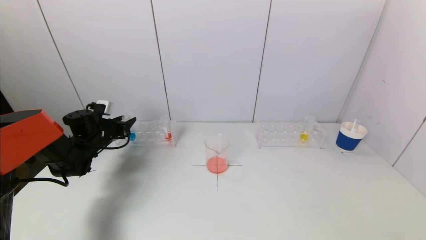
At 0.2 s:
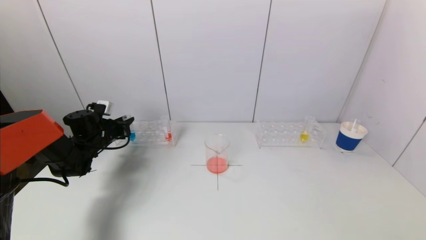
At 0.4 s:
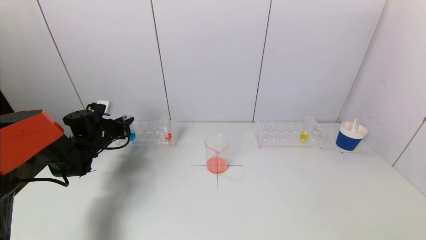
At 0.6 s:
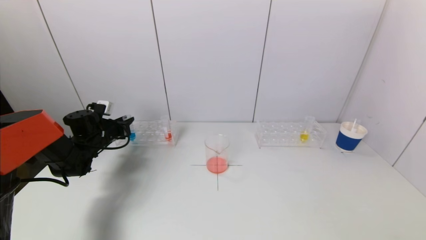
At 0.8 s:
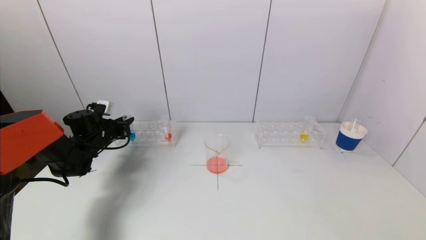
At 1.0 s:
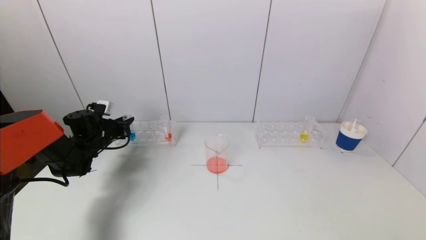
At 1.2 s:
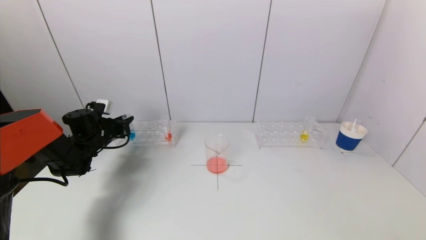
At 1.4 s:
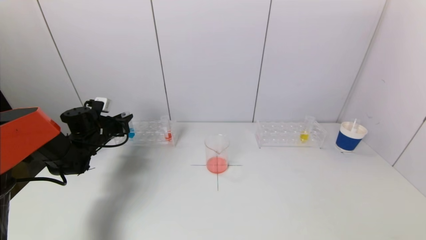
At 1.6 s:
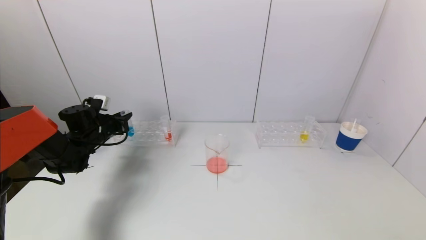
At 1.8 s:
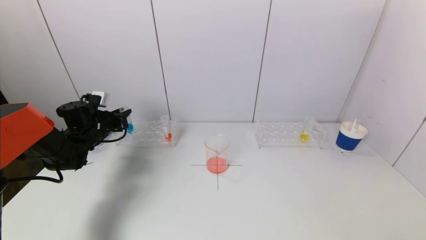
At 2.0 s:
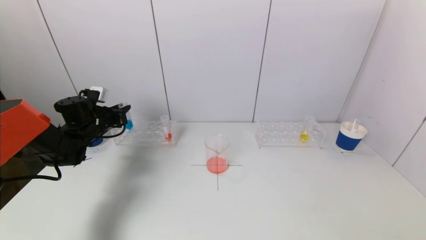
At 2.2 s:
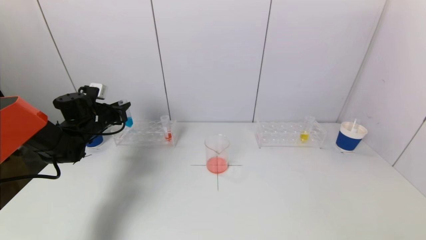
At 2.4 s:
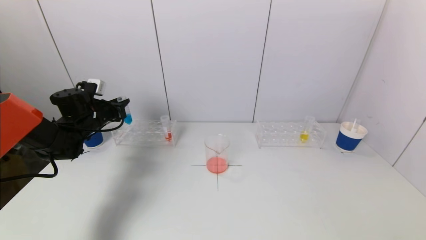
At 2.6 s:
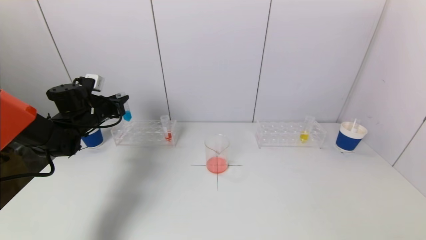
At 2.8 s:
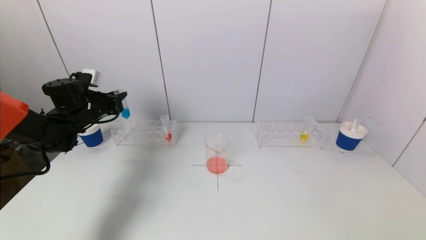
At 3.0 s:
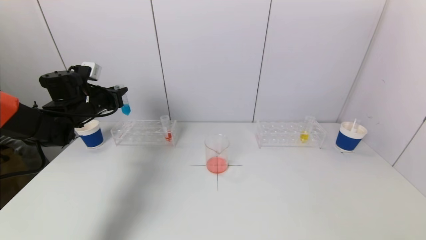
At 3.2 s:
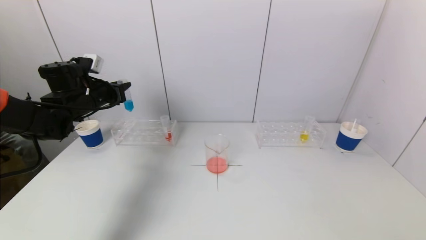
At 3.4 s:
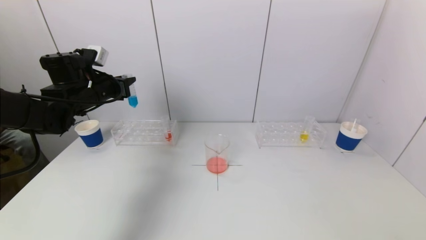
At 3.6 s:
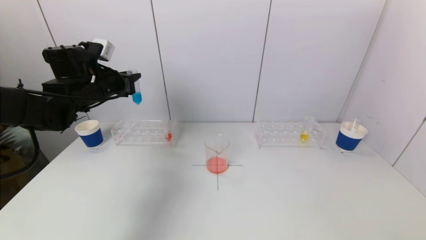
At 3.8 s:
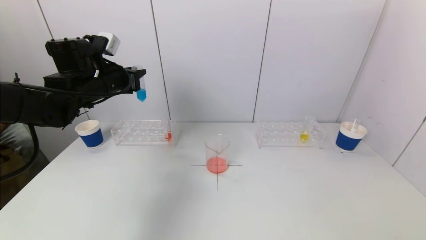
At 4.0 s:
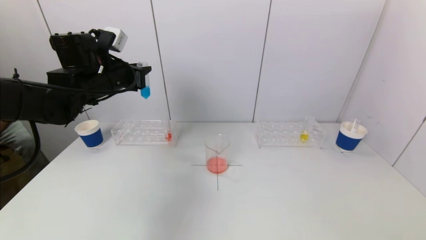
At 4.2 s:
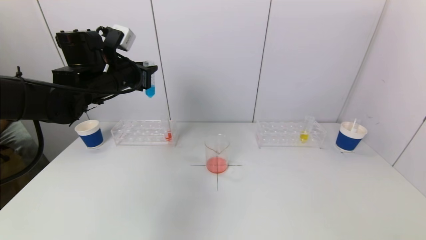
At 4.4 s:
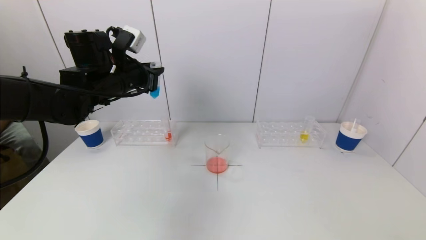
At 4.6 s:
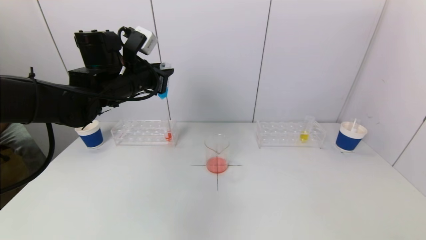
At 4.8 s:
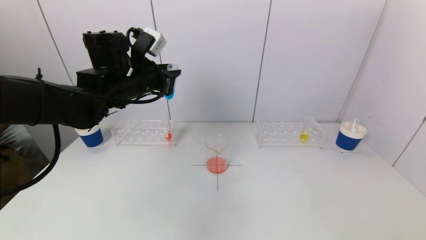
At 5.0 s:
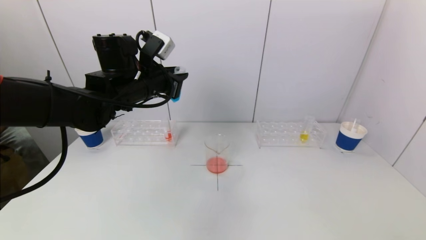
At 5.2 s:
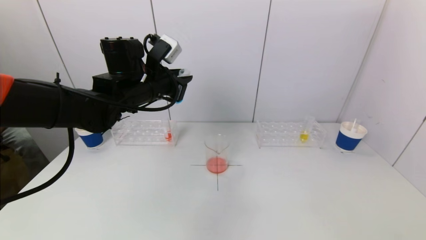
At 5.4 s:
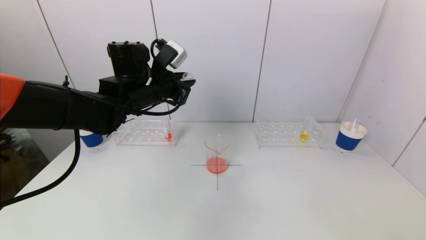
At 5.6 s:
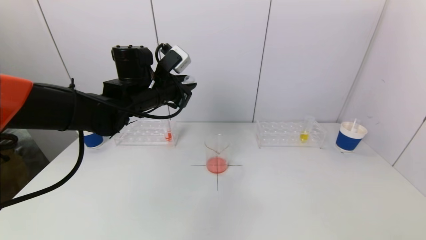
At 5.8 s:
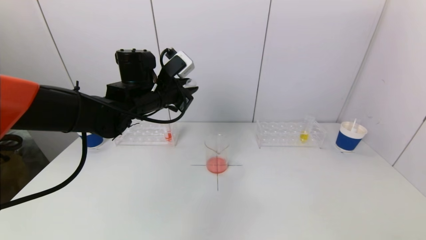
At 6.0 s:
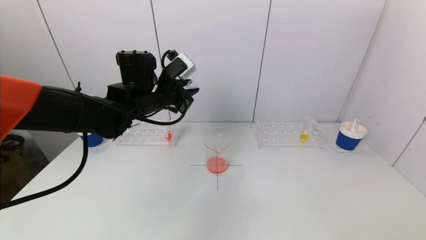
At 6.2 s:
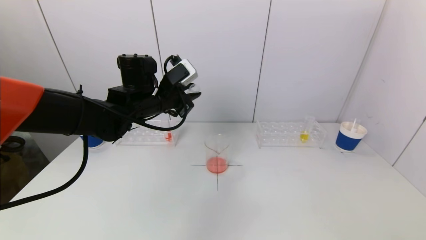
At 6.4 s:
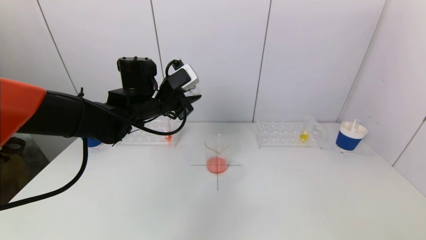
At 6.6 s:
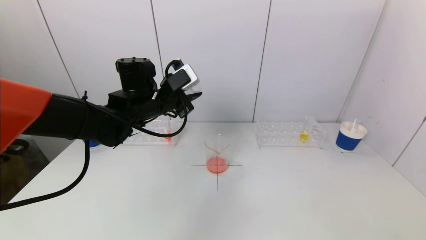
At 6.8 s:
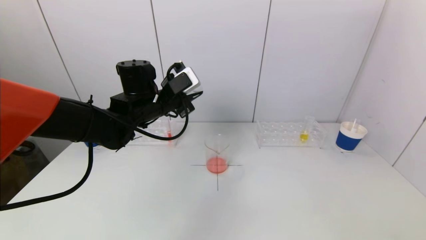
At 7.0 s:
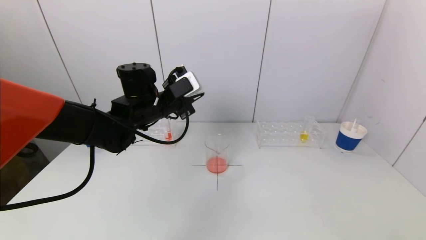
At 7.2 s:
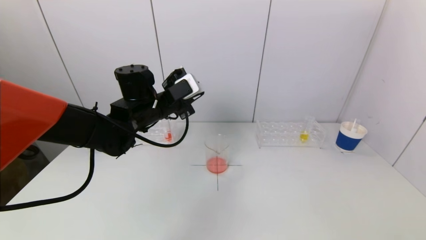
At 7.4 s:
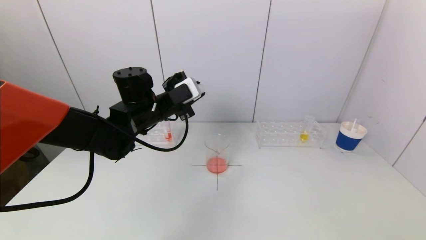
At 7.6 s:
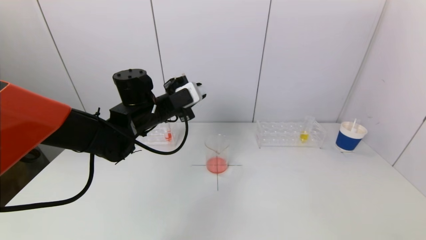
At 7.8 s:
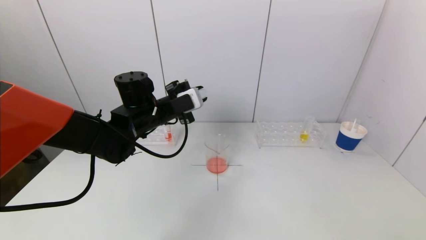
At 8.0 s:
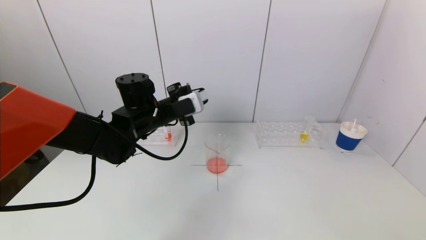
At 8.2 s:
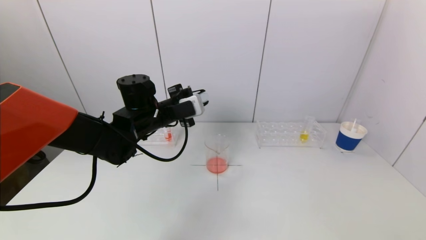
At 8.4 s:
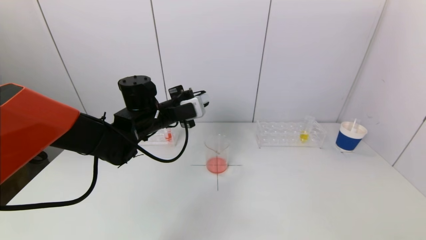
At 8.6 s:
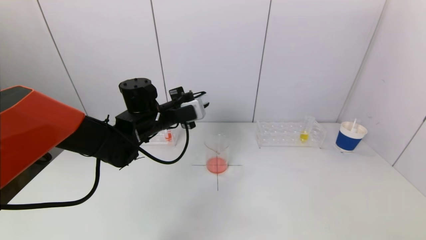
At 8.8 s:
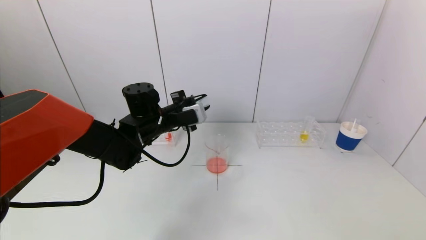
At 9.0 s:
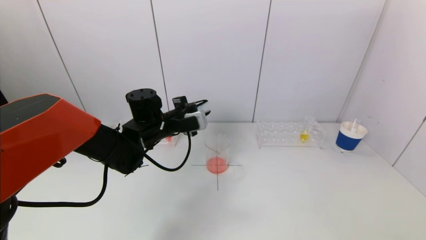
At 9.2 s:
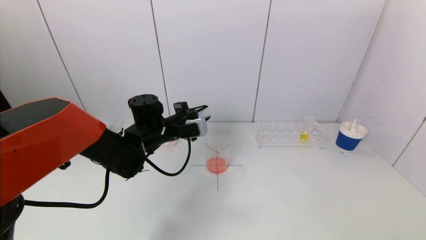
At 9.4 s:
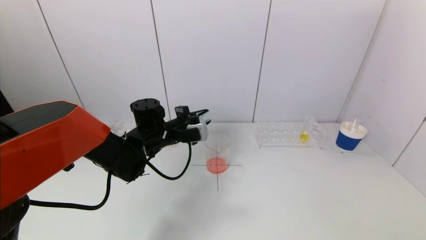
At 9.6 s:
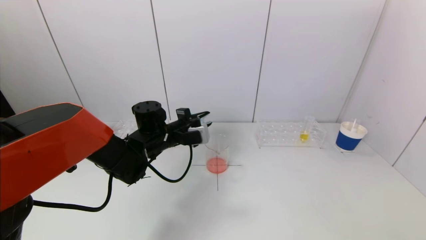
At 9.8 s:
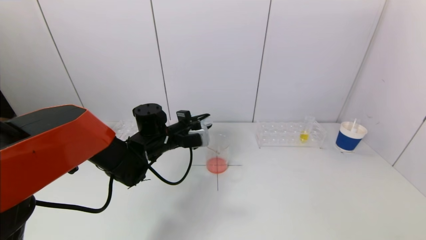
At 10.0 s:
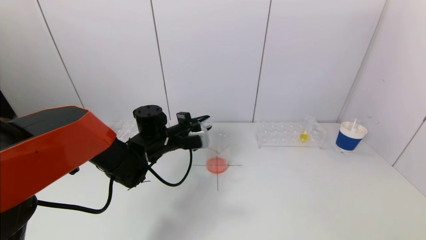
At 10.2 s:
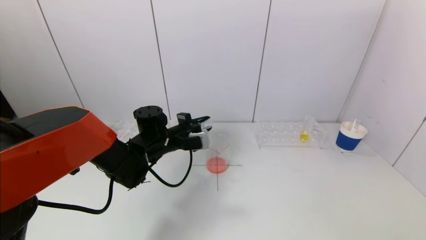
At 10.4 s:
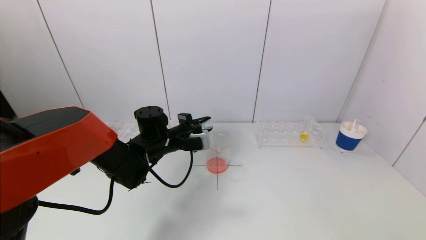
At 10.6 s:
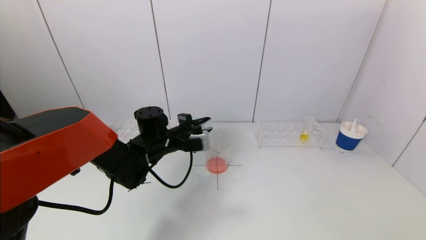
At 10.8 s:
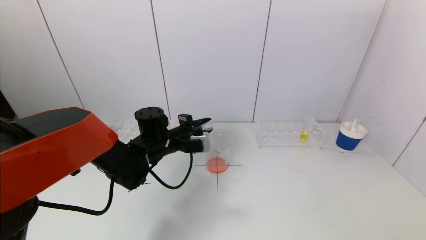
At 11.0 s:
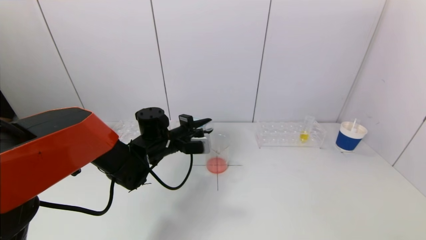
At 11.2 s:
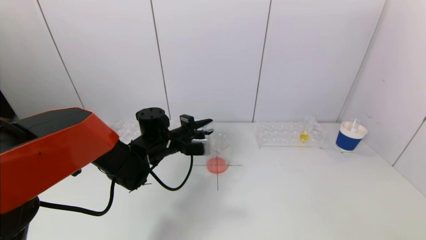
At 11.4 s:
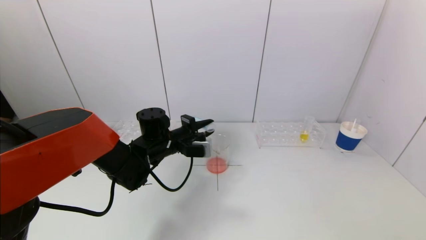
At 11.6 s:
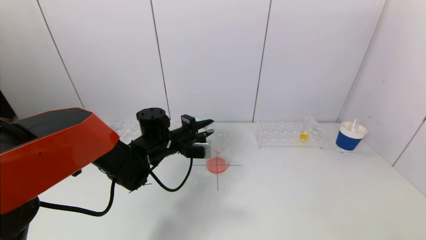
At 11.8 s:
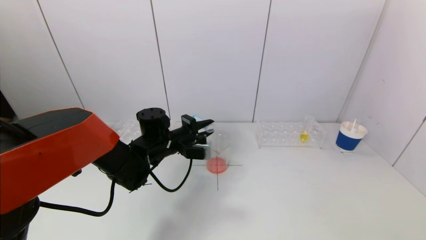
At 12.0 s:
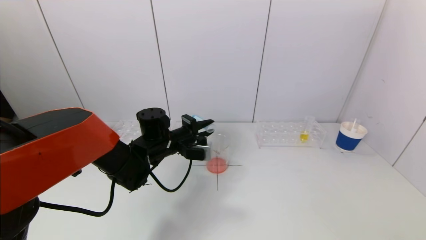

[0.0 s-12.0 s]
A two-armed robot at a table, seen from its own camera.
Task of the whole recording: pick up a test tube with pigment on left test tube rack and a test tube with pigment on right test tube rack by grippers and pour them into the beaker.
0.0 to 1.6 s: The grippers make only small movements.
1.6 to 3.0 s: The left gripper moves upward, roughly 10 cm.
3.0 to 4.4 s: The left gripper is displaced to the right and upward by about 15 cm.
4.4 to 6.0 s: The left gripper is displaced to the right by about 5 cm.
7.6 to 9.0 s: The grippers stay close to where they were, moving slightly.
9.0 to 12.0 s: The grippers stay close to where they were, moving slightly.

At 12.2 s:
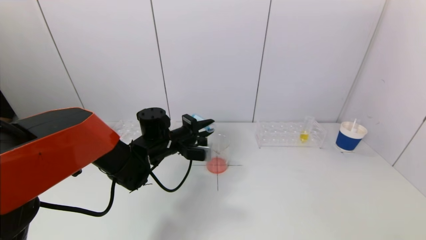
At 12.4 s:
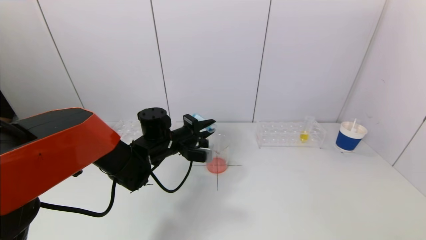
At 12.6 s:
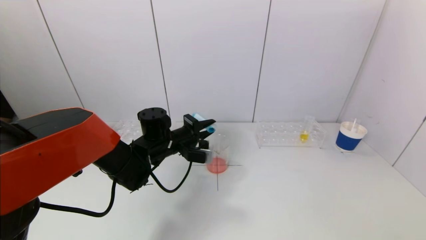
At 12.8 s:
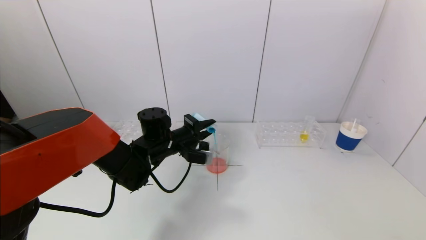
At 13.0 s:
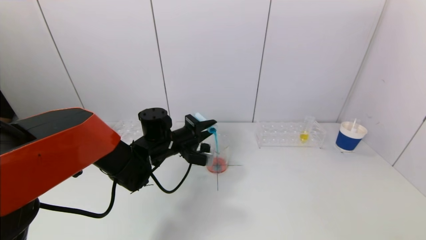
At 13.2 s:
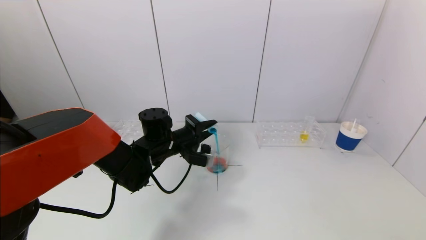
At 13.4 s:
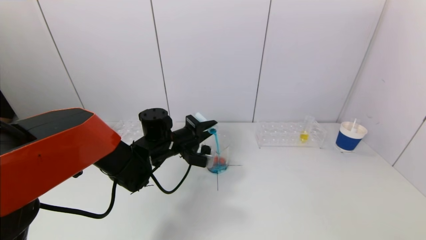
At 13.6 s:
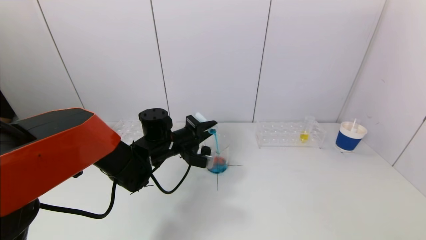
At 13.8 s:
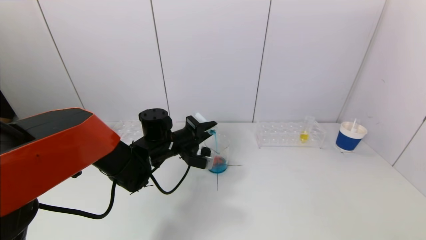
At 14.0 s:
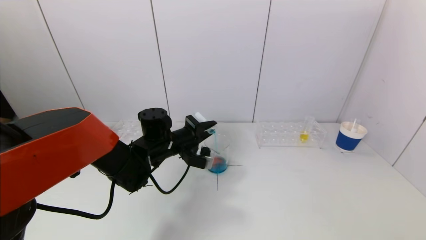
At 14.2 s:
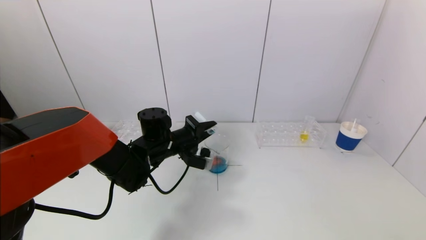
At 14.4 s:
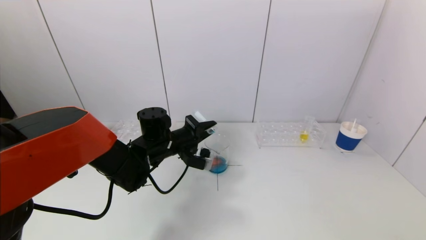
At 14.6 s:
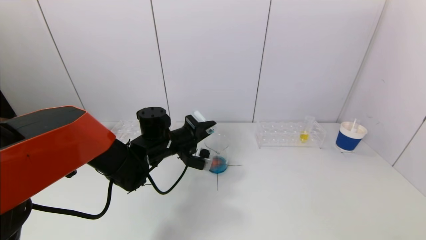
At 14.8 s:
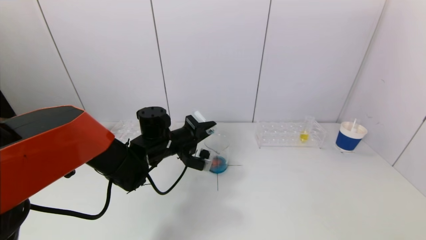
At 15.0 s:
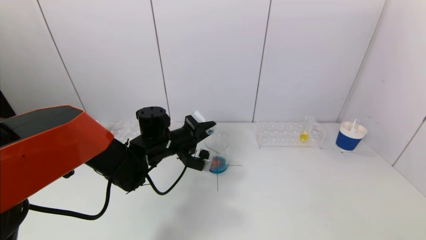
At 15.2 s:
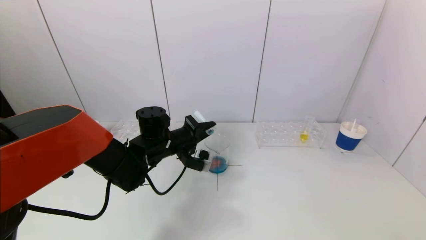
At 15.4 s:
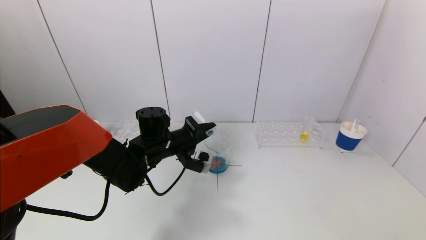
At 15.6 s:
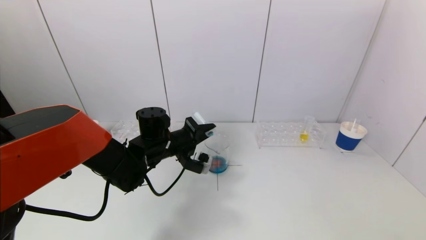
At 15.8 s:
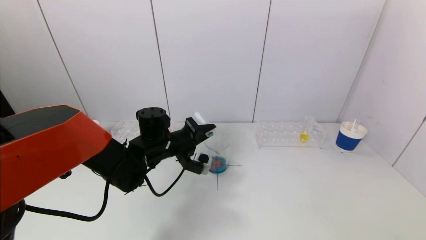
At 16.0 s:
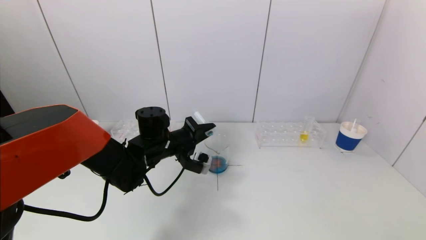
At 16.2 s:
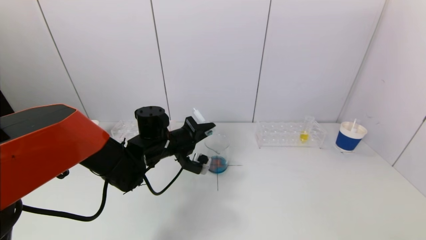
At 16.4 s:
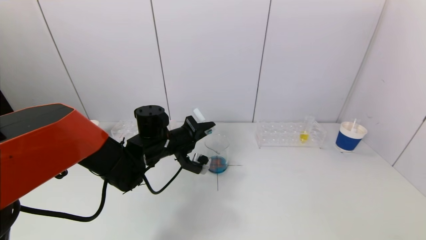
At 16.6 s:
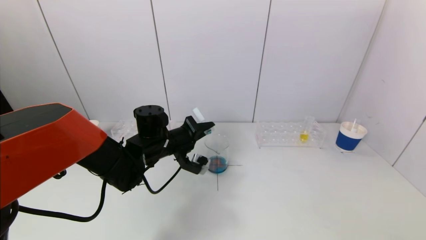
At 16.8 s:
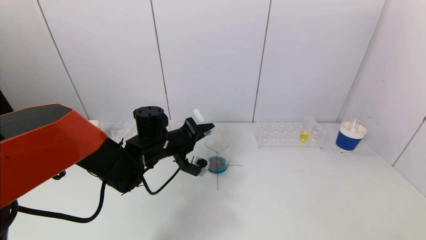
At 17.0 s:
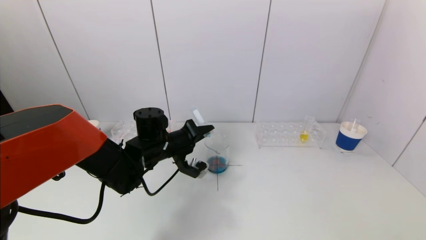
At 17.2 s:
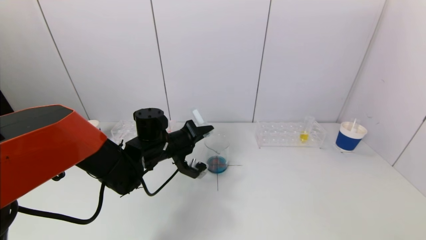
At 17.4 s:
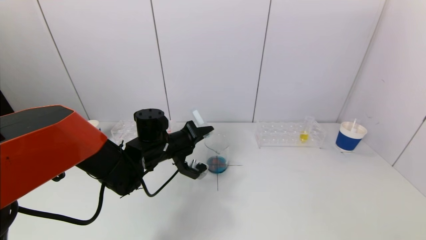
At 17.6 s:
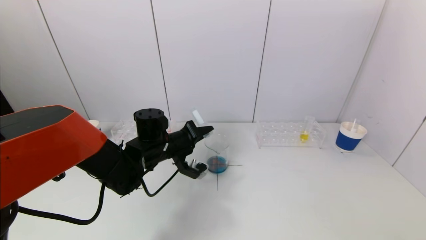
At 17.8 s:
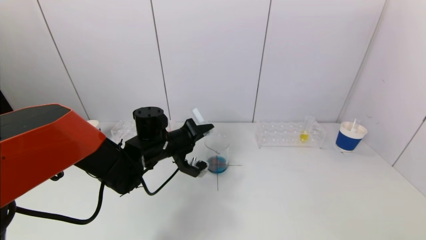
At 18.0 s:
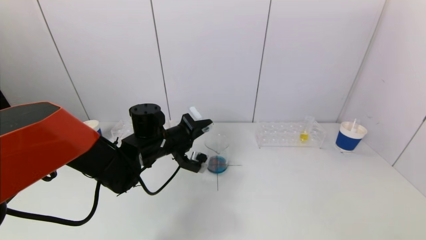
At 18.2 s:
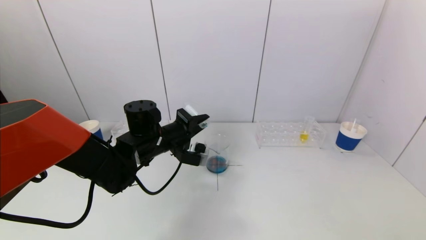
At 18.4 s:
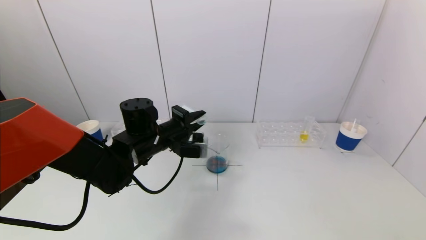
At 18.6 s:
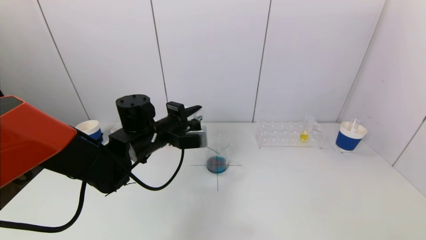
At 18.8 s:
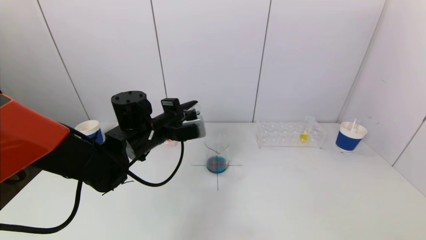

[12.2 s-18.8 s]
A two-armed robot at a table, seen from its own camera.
Task of the whole recording: pick up a test tube with pigment on left test tube rack and a test tube with pigment on right test tube rack by grippers and pour them into the beaker.
Step, 12.2 to 14.6 s: Pour the blue reagent into the graduated cylinder with the left gripper.
12.2 to 15.4 s: The grippers stay close to where they were, moving slightly.
15.4 to 17.2 s: There are only small adjustments of the grippers.
17.2 to 18.8 s: The left gripper shifts approximately 5 cm upward.
